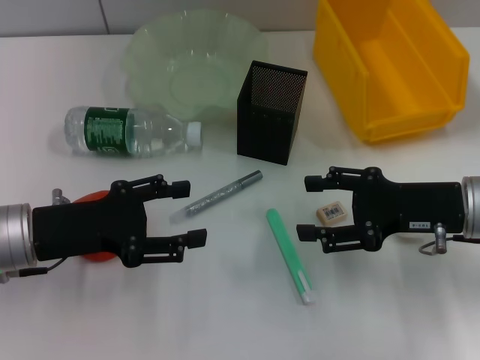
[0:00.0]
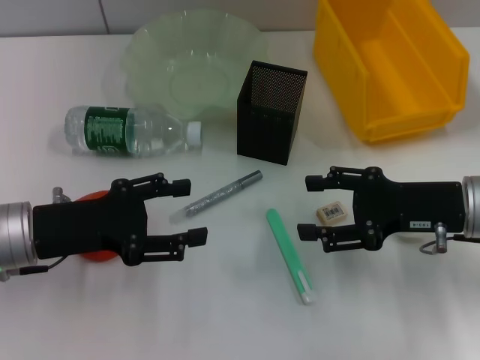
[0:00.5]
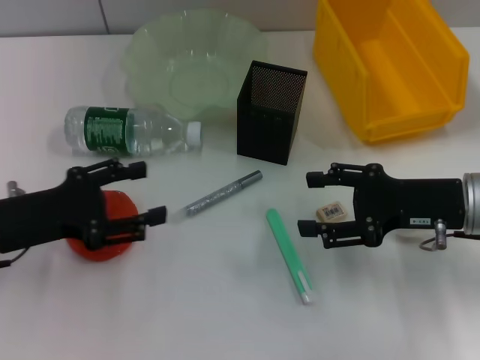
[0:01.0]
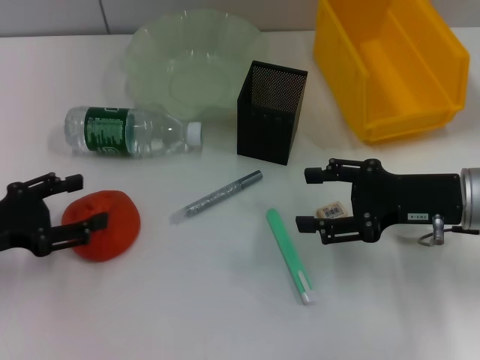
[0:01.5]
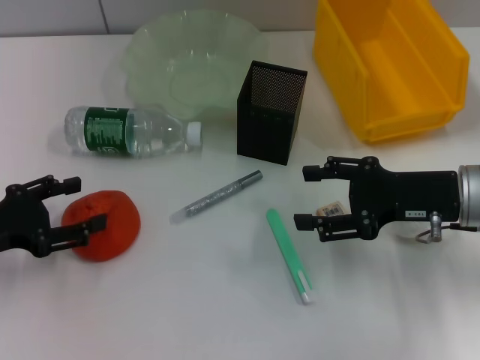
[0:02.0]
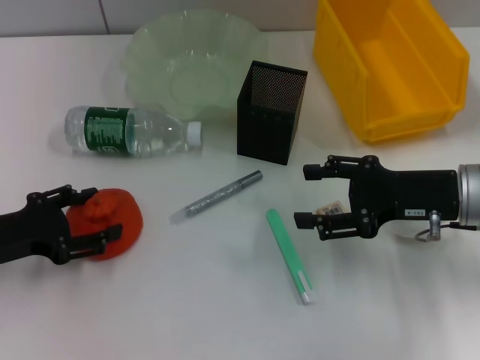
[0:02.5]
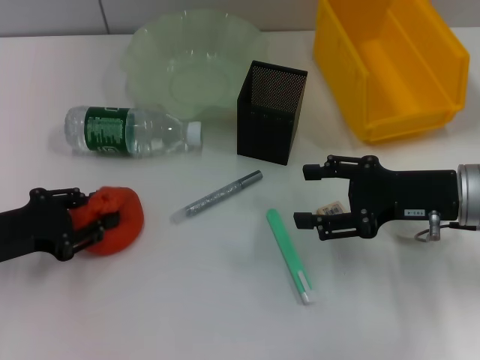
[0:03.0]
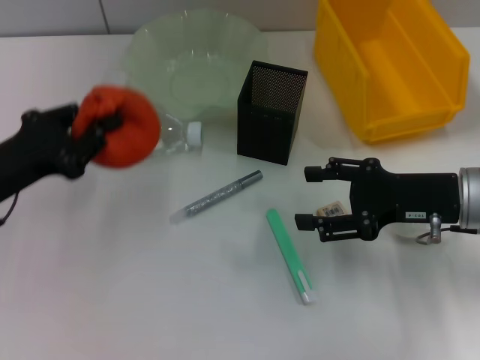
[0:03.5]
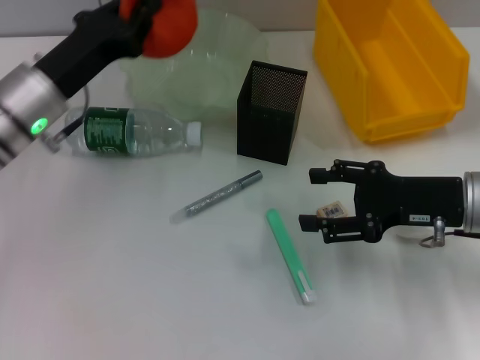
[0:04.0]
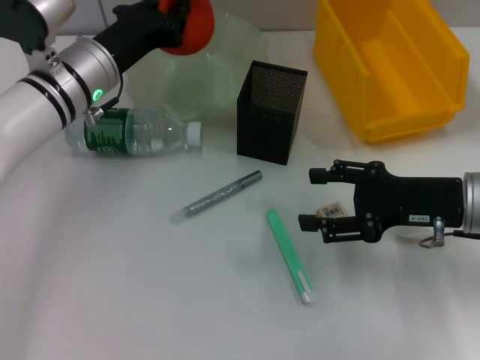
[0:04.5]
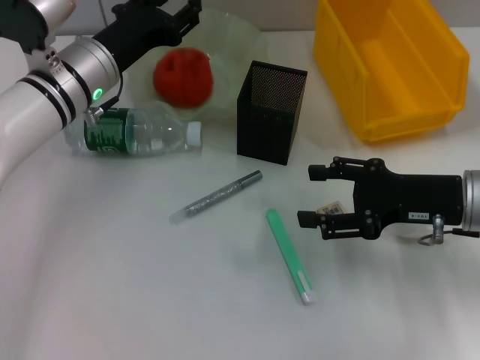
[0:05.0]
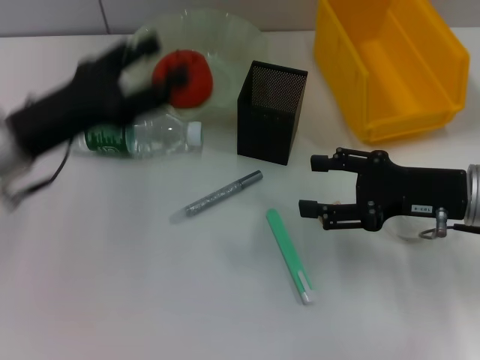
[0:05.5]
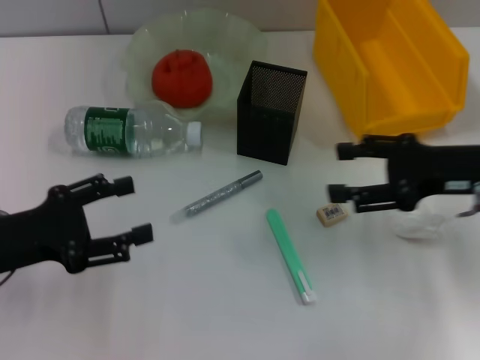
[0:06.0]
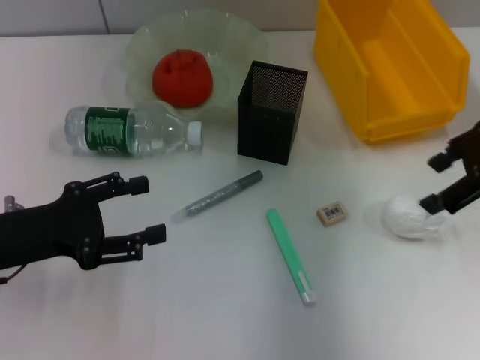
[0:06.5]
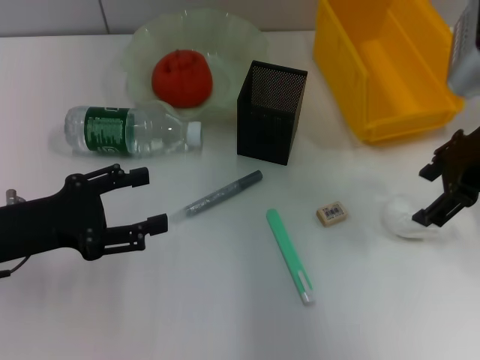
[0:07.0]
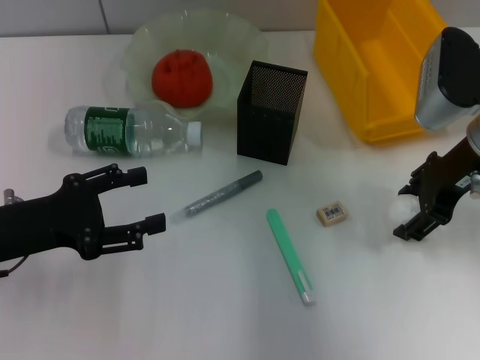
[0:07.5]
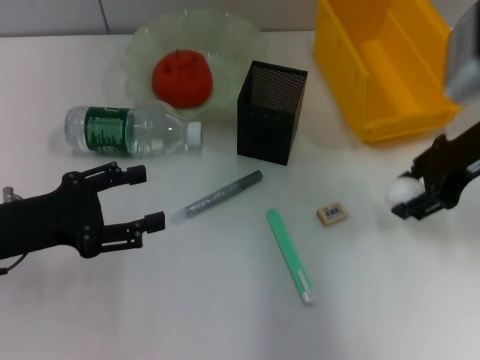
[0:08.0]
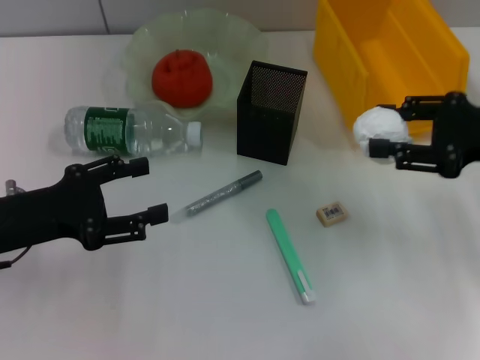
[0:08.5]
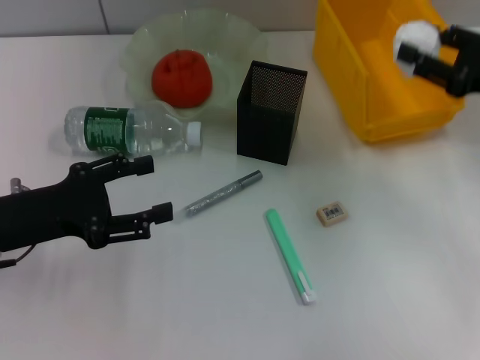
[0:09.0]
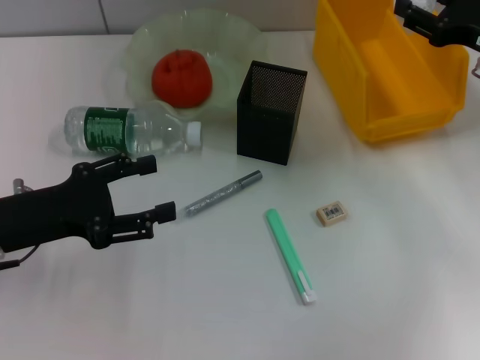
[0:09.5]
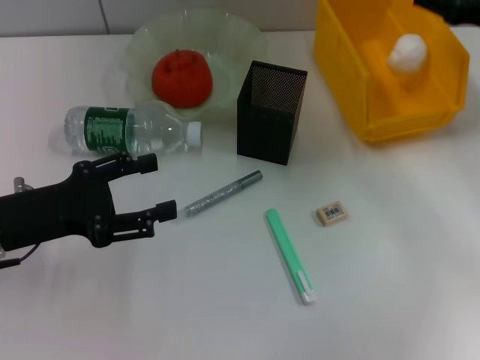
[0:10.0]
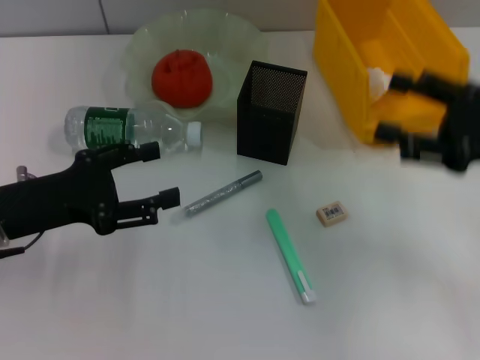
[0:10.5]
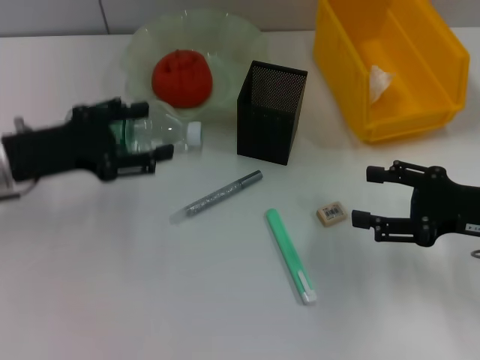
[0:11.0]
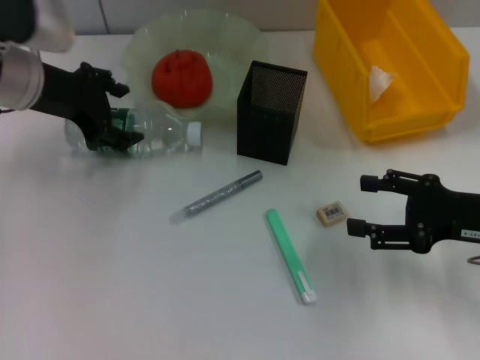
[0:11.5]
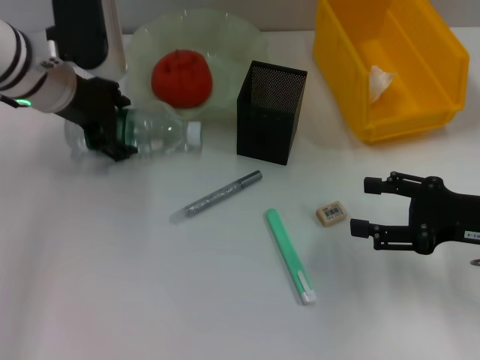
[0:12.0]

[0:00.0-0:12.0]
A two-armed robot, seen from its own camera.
Step, 0:00.0 to 0:03.0: Grab the orange with the left hand.
Step, 0:03.5 to 0:05.0: Place the orange into the fruit bowl with the left hand.
Step, 0:05.5 to 0:07.5: Grab the paper ball with the right hand.
Step, 0:08.0 to 0:10.0: Place the paper ball into the trash can with the right hand.
0:00.0 to 0:02.0: The left gripper shifts some 10 cm to the left.
0:02.0 to 0:04.0: The left gripper moves to the right and forward, approximately 15 cm, and closes its fingers.
0:04.0 to 0:06.0: The left gripper goes about 15 cm backward and to the left, and opens its fingers.
0:06.0 to 0:08.0: The right gripper is displaced upward by roughly 5 cm, and closes.
0:08.0 to 0:10.0: The right gripper shifts some 5 cm to the right.
0:10.0 to 0:12.0: The left gripper moves forward, to the right and upward, some 20 cm, while the right gripper moves backward and downward, roughly 15 cm.

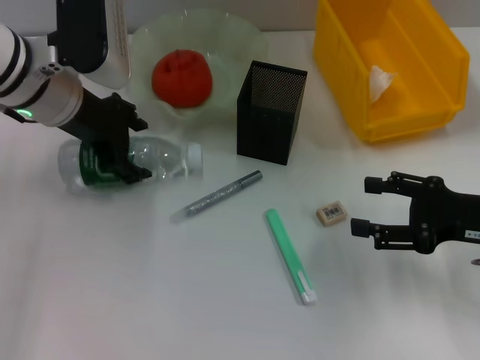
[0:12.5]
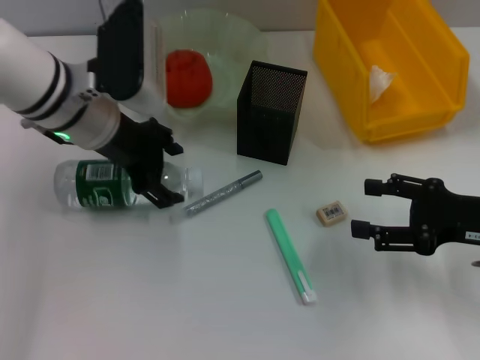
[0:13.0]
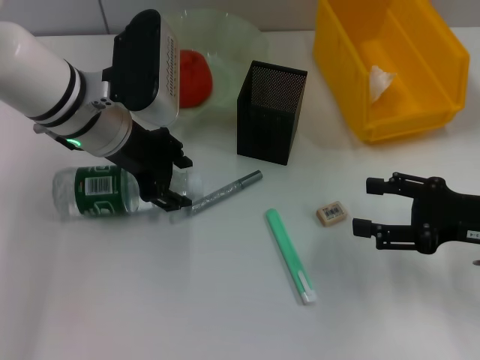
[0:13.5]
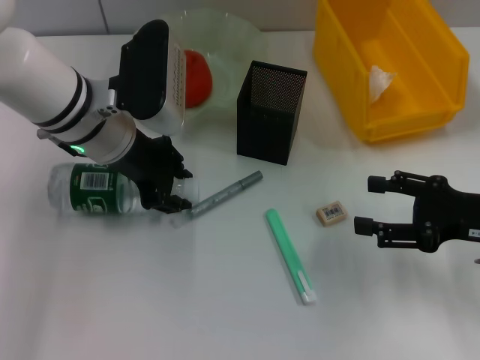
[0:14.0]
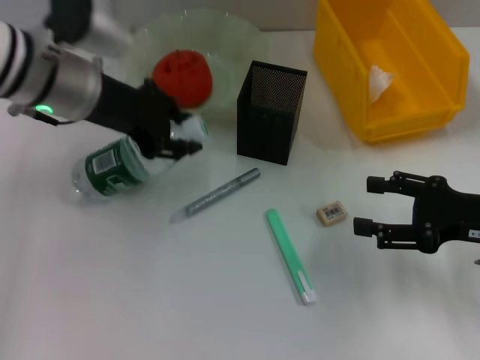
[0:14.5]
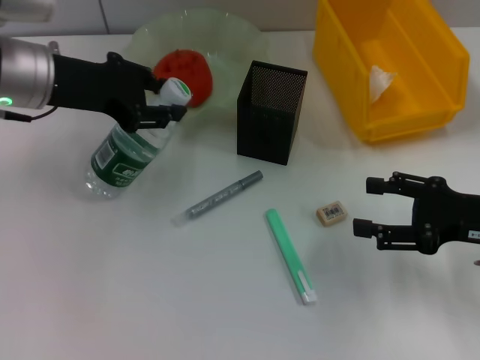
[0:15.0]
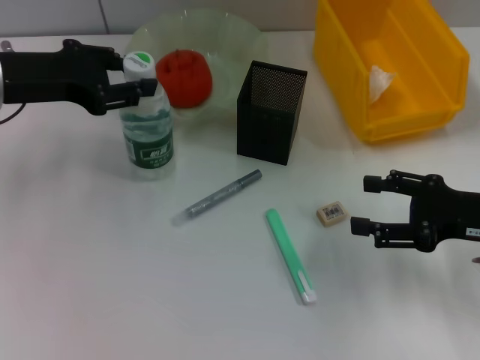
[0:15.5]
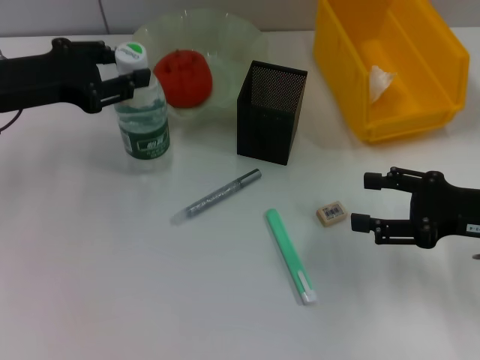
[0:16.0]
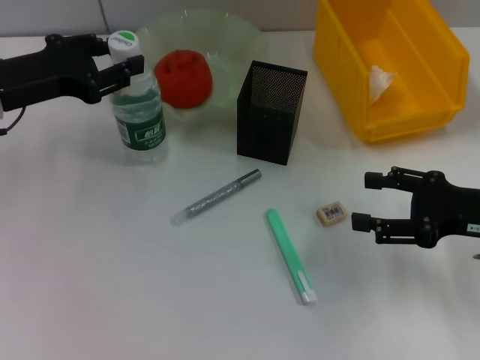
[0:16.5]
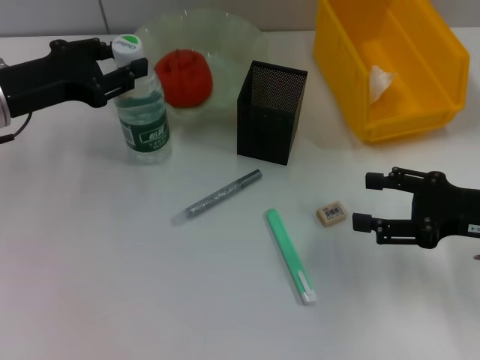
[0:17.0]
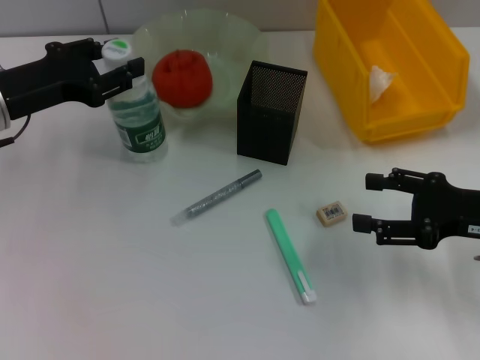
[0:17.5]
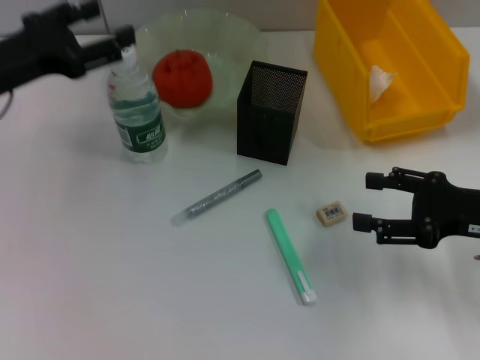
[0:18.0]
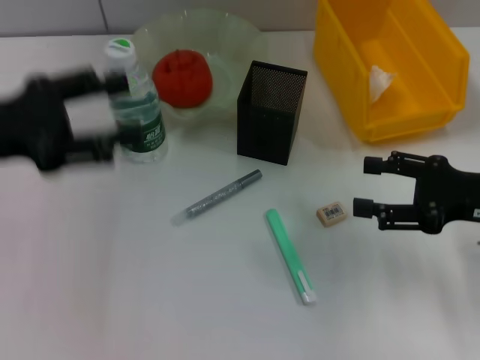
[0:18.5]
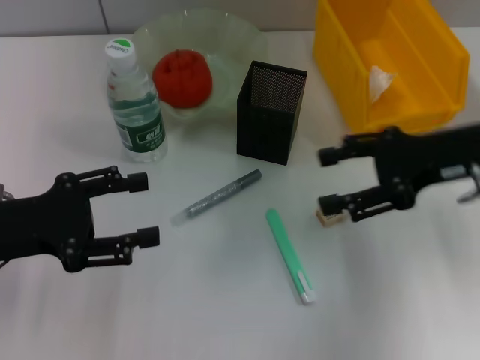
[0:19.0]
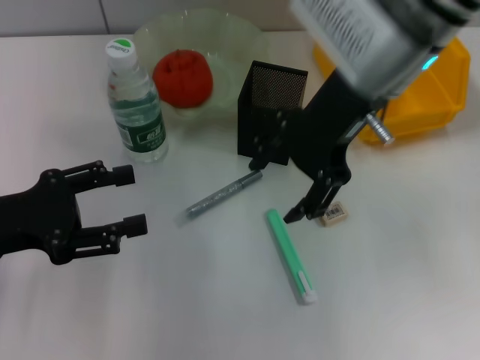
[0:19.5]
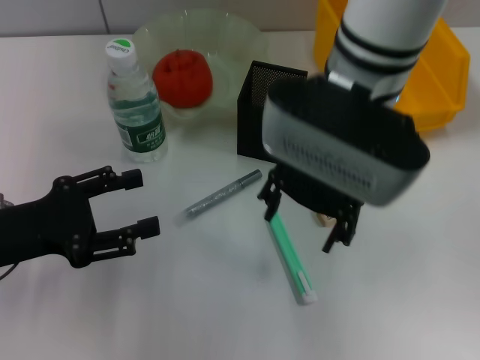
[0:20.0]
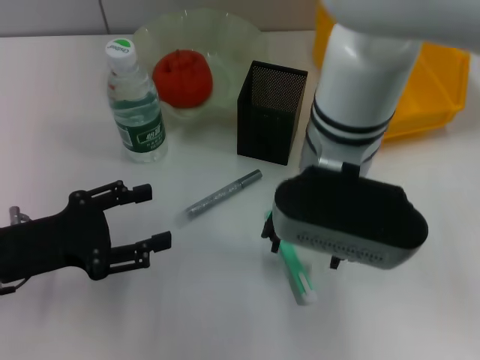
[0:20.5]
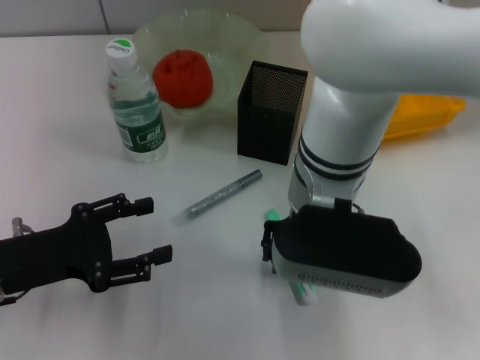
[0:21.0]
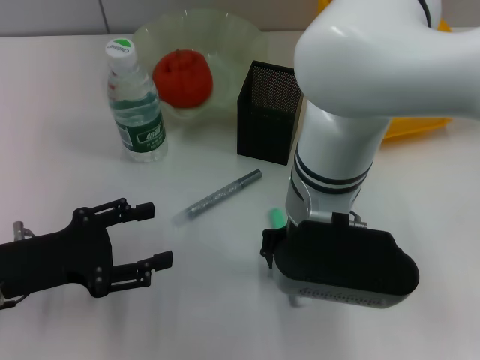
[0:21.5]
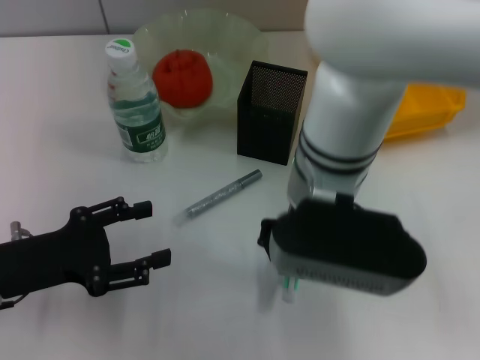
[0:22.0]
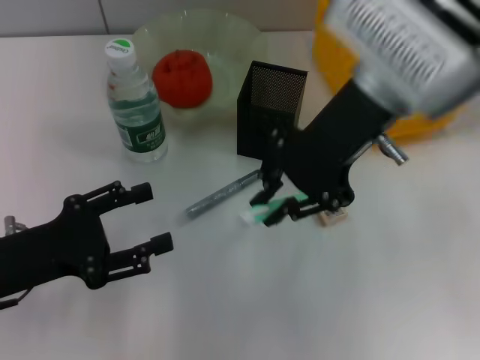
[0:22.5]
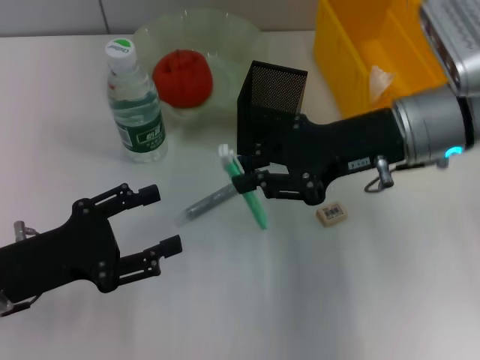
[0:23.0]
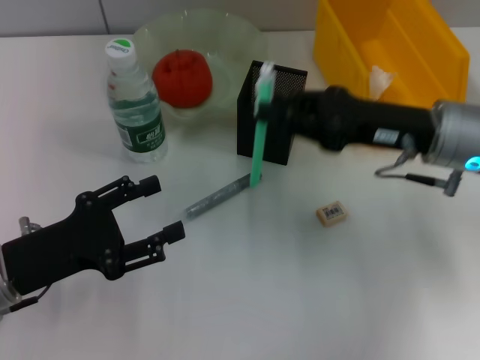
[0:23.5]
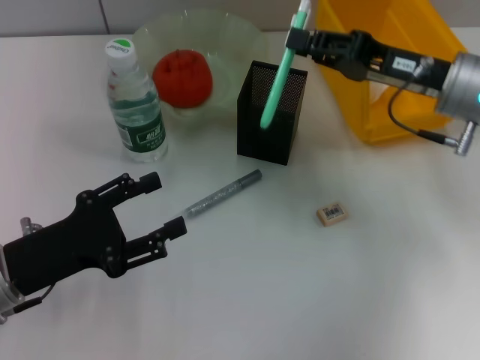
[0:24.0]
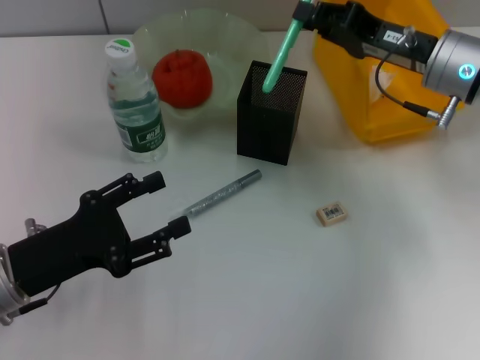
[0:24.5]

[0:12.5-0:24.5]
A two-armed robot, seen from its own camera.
Step, 0:14.5 to 0:17.5: Place the water bottle on the table with the left hand.
Step, 0:18.5 to 0:21.5: Grab the blue utility knife with the right hand.
0:12.5 to 0:14.5: The left gripper closes.
0:14.5 to 0:16.5: The left gripper goes approximately 10 cm to the left.
0:16.5 to 0:18.5: The left gripper is displaced backward by roughly 5 cm, and opens up.
0:18.5 to 0:20.5: The right gripper moves to the left, approximately 25 cm. The left gripper heads downward and backward, covering some 10 cm.
0:20.5 to 0:22.5: The right gripper moves to the right and upward, roughly 10 cm, and closes its fingers.
0:22.5 to 0:24.5: The right gripper moves to the right and downward, some 15 cm.

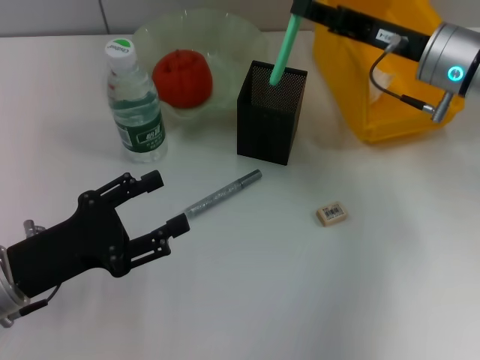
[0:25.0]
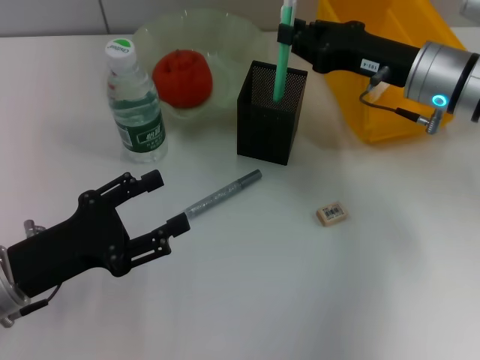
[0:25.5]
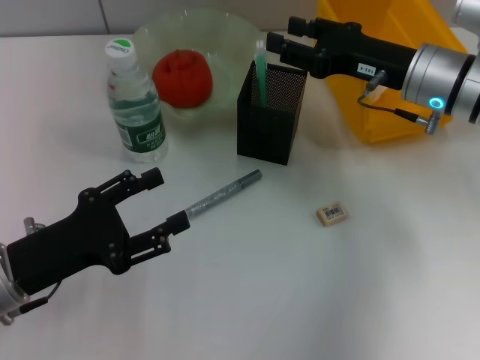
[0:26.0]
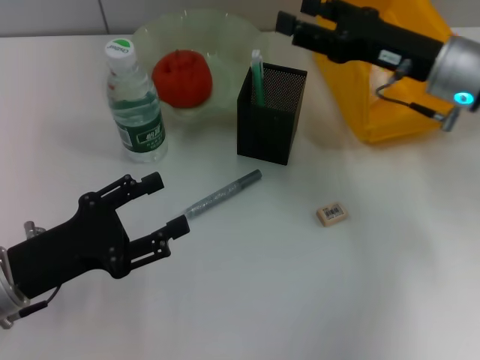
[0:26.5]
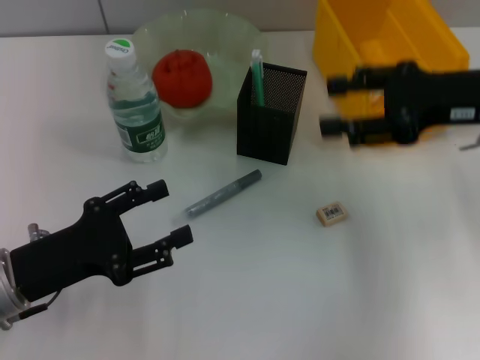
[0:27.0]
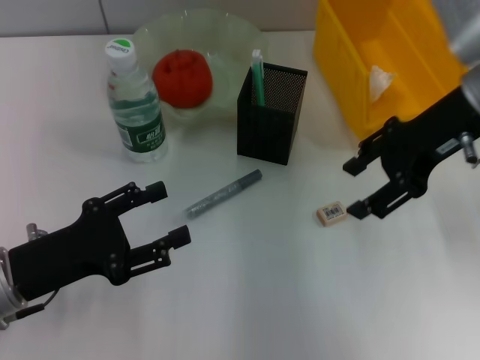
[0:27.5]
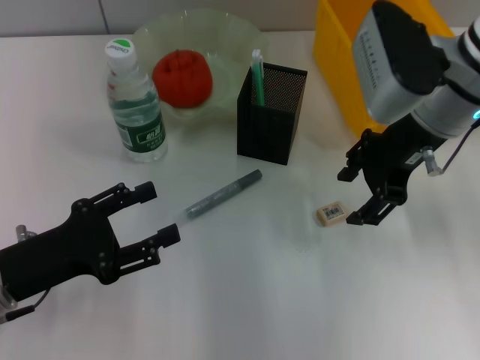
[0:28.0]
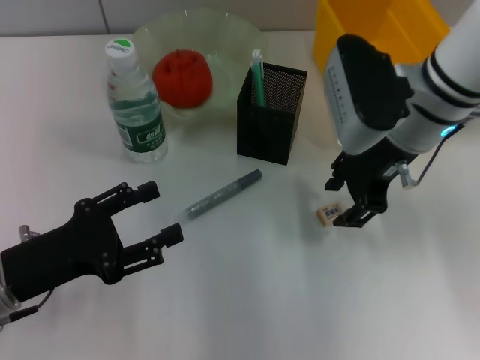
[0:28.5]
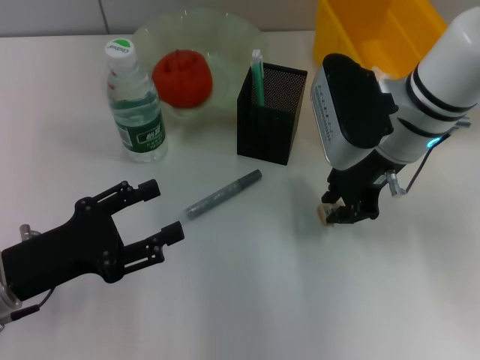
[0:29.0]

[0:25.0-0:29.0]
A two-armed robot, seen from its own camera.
0:25.0 to 0:27.0: The right gripper is displaced backward by roughly 5 cm, and opens up.
0:27.0 to 0:29.0: The right gripper shifts roughly 10 cm to the left, and closes its fingers.
